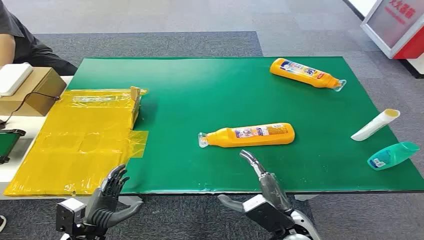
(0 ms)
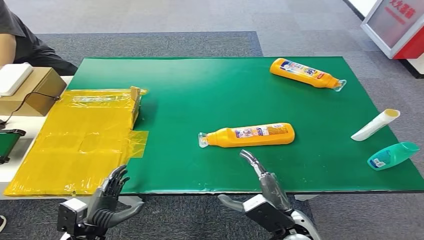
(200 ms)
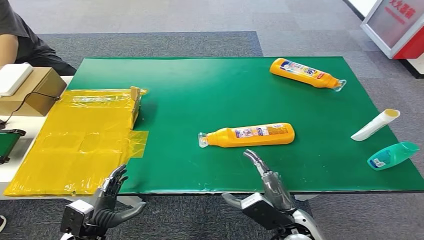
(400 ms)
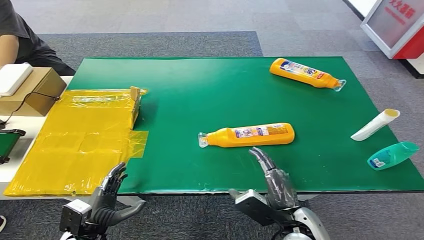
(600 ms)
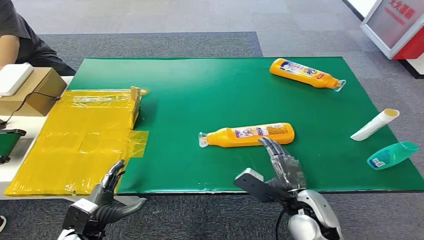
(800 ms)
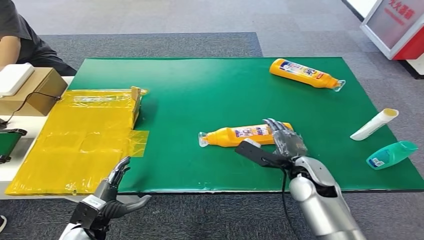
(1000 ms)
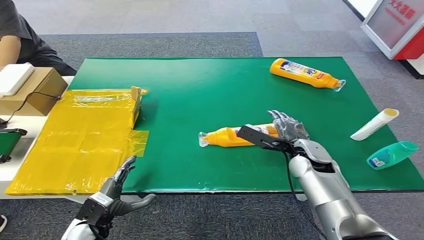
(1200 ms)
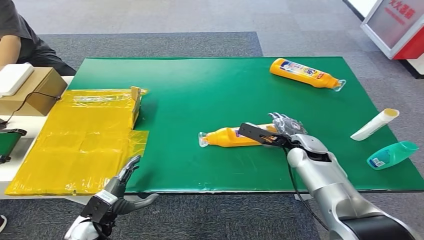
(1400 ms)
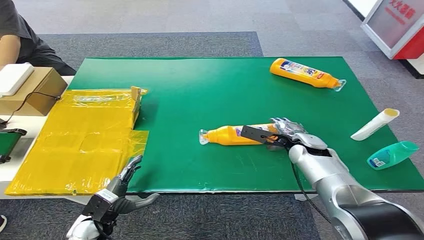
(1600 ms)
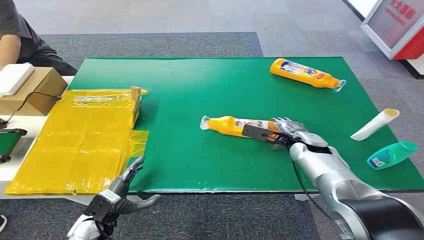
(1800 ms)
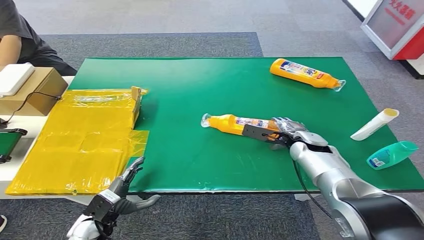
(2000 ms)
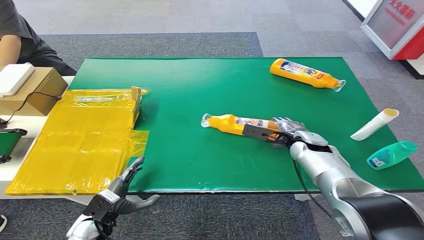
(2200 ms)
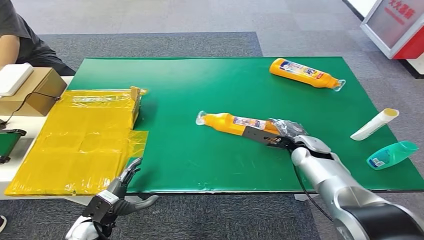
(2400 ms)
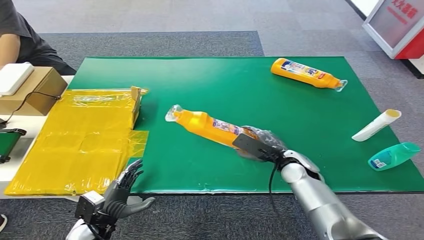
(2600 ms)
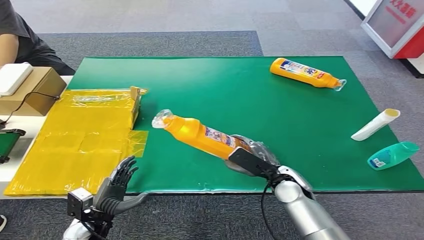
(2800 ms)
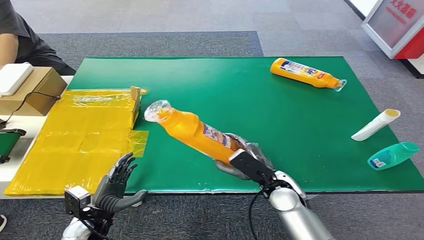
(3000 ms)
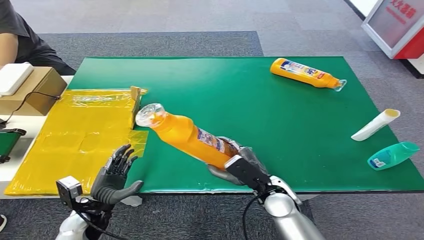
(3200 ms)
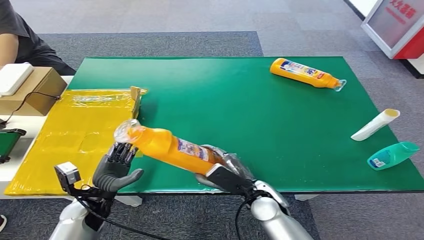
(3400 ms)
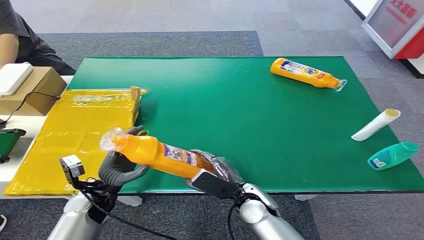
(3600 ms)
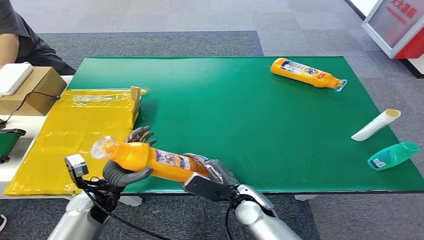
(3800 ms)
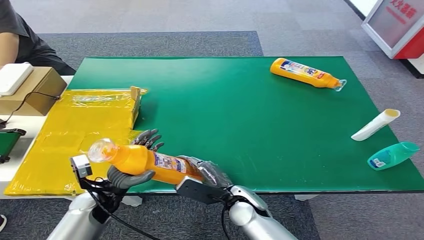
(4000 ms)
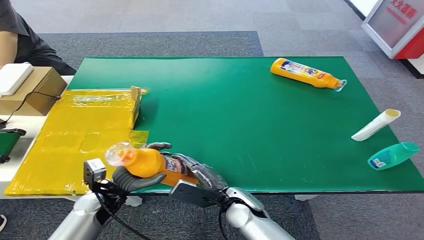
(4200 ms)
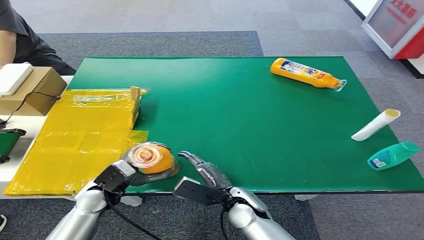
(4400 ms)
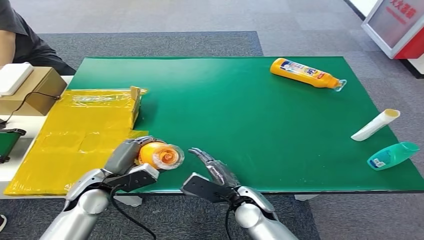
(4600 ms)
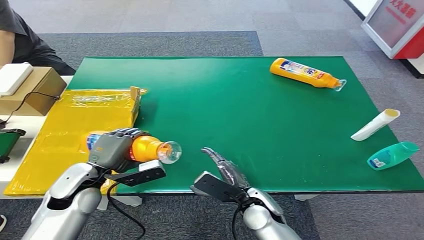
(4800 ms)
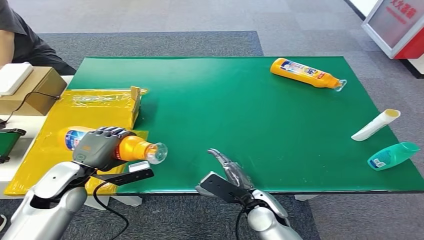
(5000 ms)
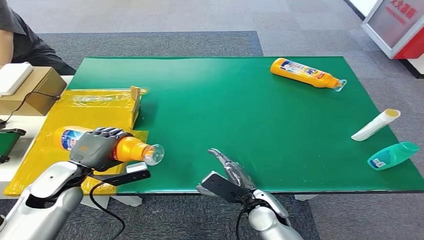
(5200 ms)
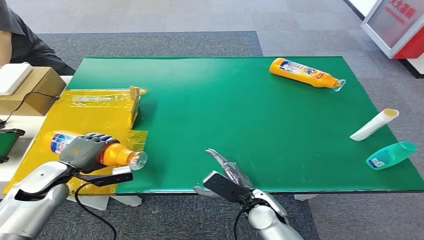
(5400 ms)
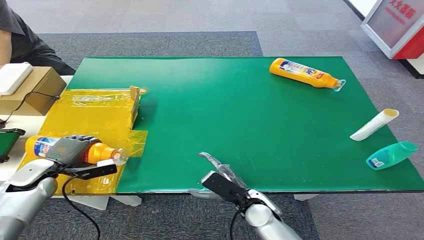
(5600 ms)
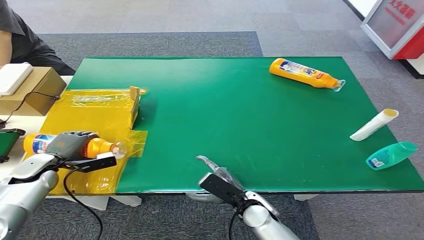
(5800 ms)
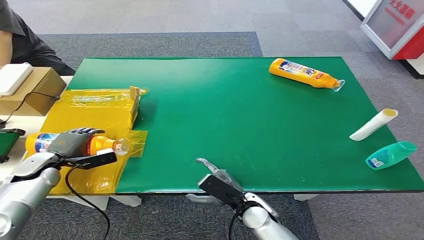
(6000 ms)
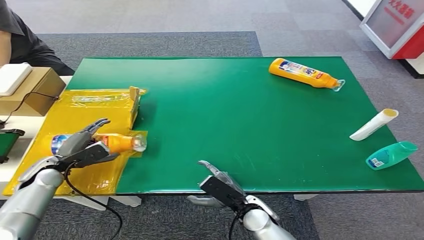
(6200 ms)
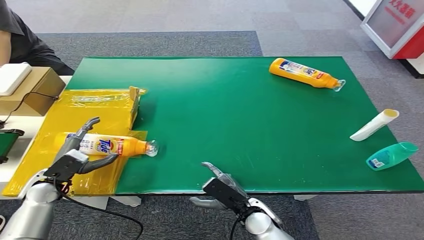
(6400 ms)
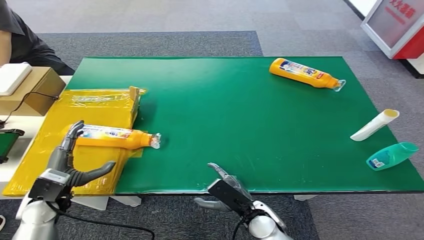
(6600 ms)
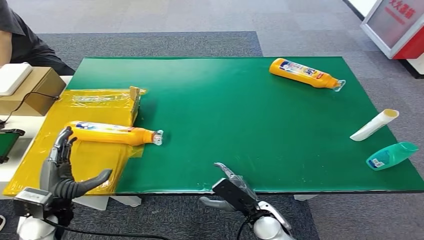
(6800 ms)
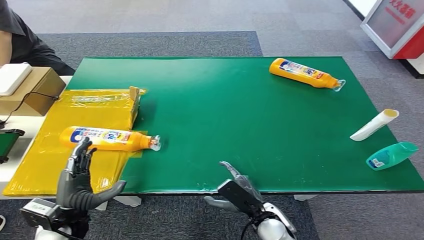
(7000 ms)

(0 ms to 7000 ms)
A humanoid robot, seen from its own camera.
Step, 0 ms - 3000 ms: Pick up the bottle from the table.
Step, 3200 ms - 7000 ms: Turn the bottle to the front side.
1400 ms - 2800 ms: The right hand heads backward, covering approximately 10 cm.
2800 ms - 4200 ms: The right hand heads to the left and backward, covering approximately 15 cm; the left hand shifts approximately 10 cm forward and upward.
4200 ms - 5600 ms: The left hand travels to the left and forward by roughly 20 cm.
5600 ms - 7000 ms: The left hand is displaced backward and to the right by approximately 20 cm.
